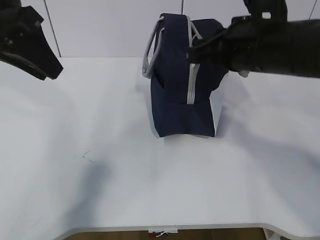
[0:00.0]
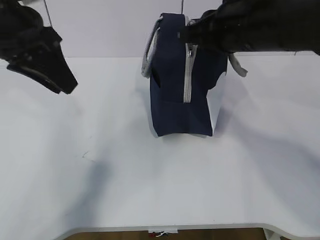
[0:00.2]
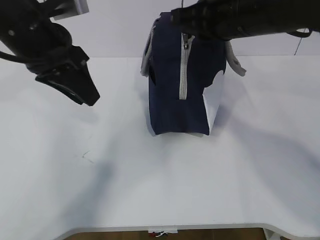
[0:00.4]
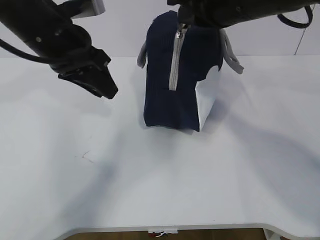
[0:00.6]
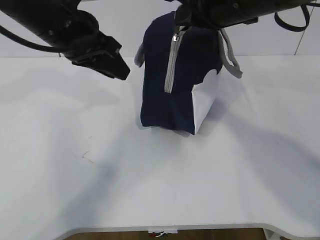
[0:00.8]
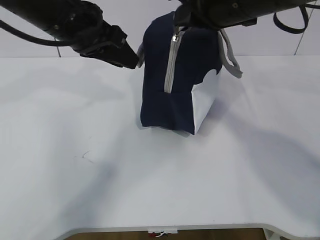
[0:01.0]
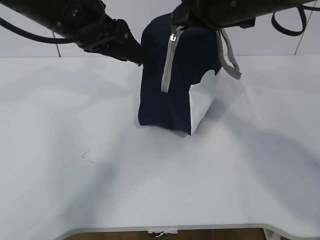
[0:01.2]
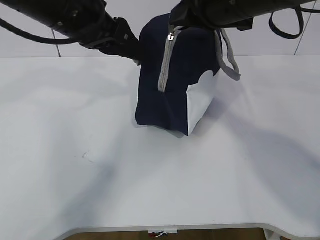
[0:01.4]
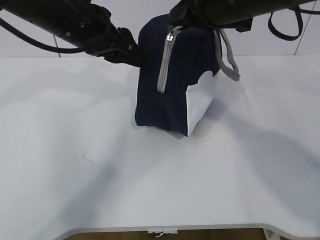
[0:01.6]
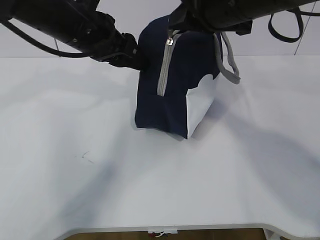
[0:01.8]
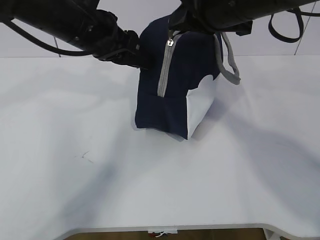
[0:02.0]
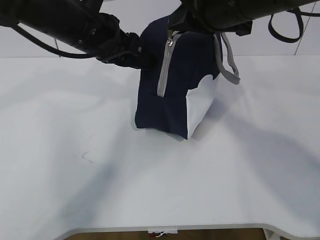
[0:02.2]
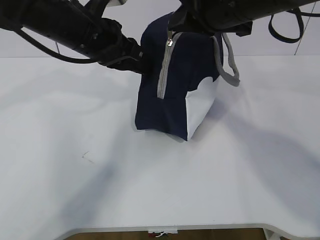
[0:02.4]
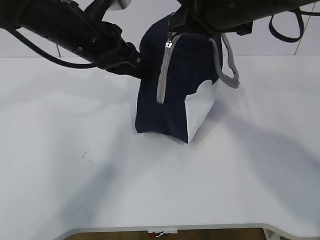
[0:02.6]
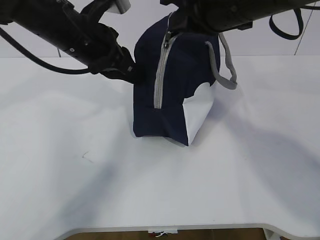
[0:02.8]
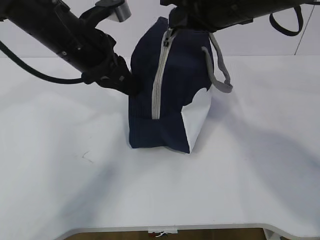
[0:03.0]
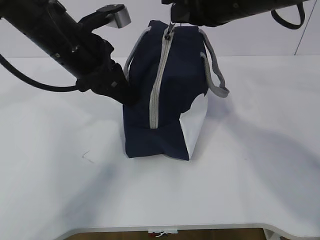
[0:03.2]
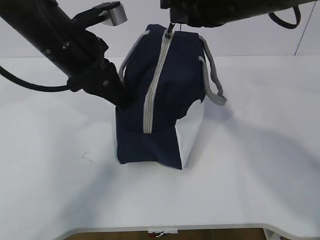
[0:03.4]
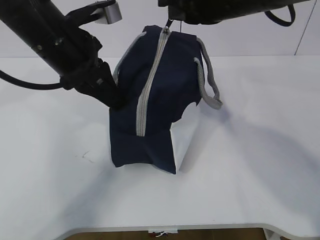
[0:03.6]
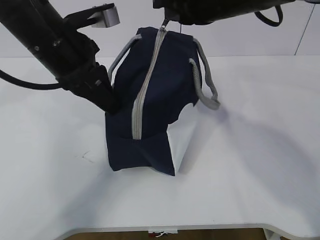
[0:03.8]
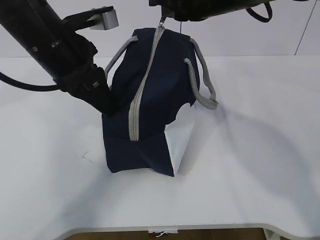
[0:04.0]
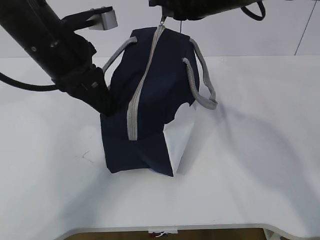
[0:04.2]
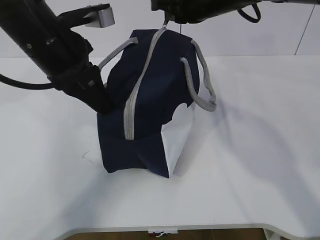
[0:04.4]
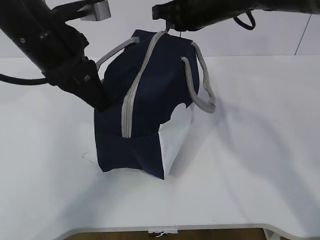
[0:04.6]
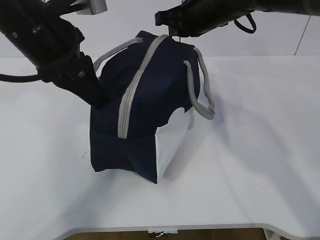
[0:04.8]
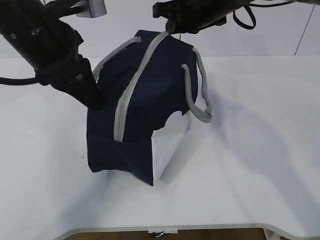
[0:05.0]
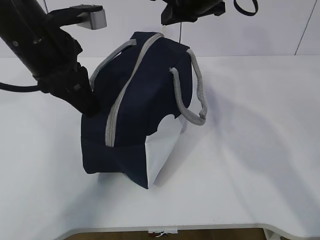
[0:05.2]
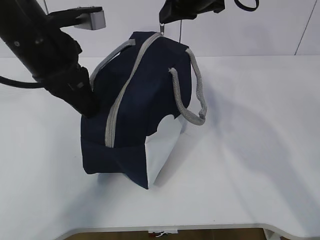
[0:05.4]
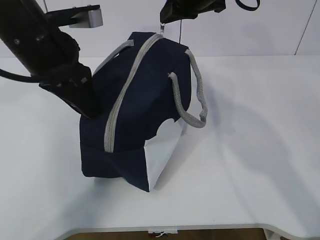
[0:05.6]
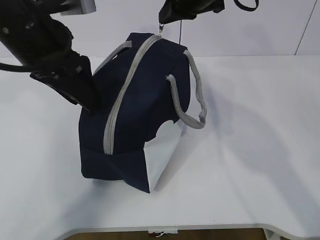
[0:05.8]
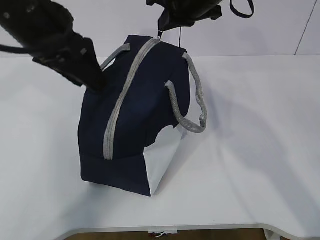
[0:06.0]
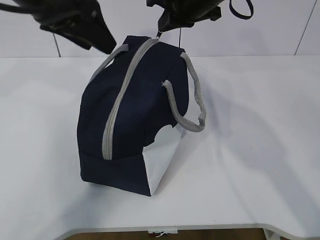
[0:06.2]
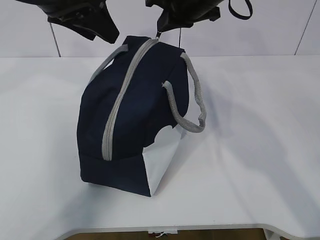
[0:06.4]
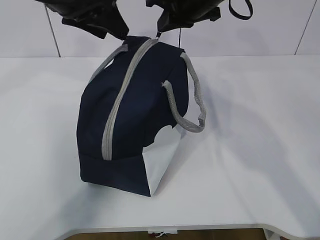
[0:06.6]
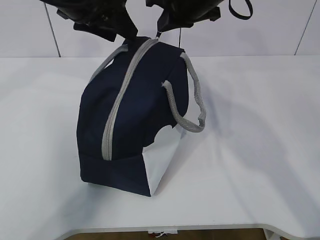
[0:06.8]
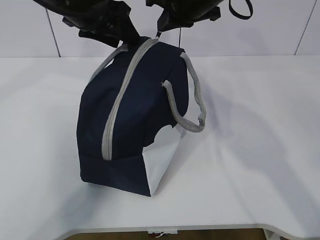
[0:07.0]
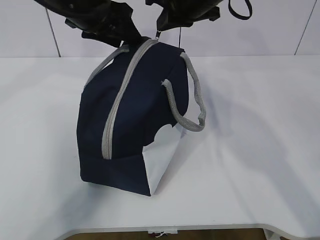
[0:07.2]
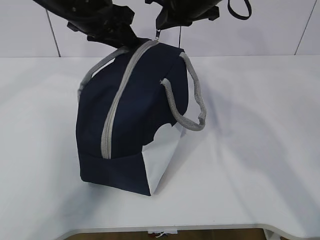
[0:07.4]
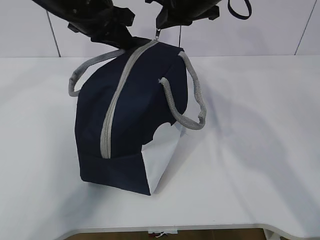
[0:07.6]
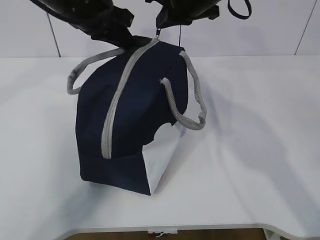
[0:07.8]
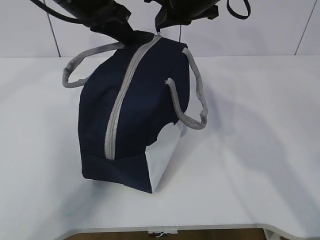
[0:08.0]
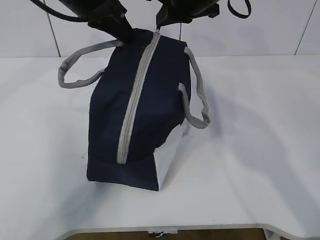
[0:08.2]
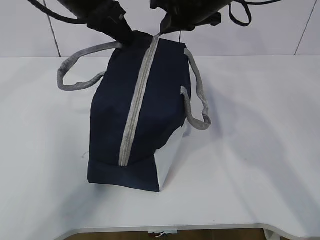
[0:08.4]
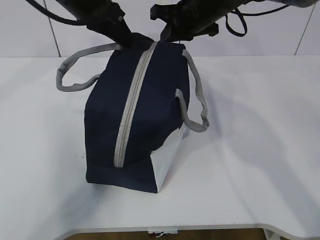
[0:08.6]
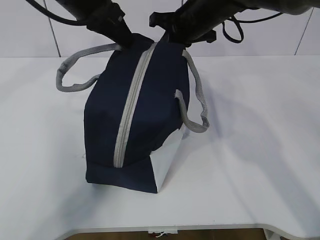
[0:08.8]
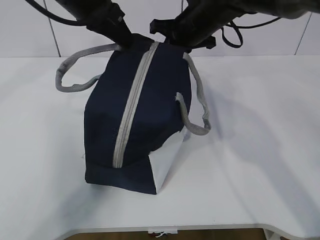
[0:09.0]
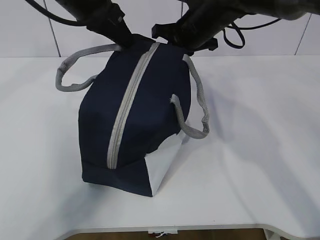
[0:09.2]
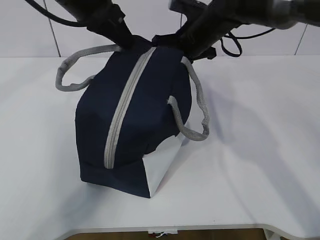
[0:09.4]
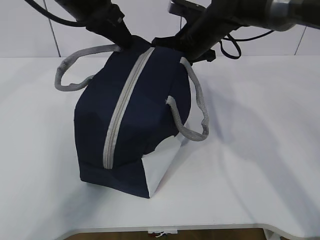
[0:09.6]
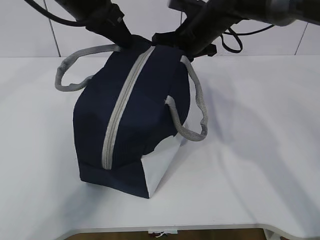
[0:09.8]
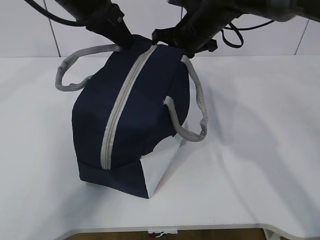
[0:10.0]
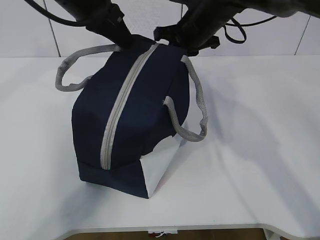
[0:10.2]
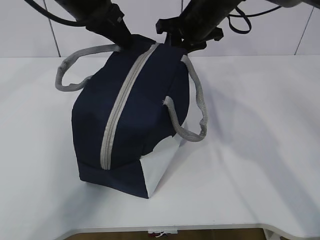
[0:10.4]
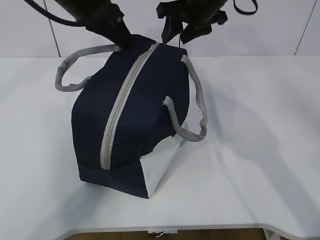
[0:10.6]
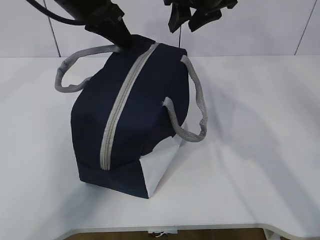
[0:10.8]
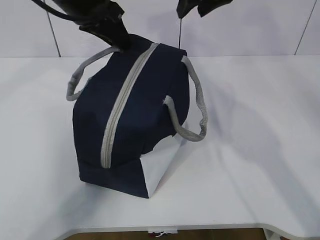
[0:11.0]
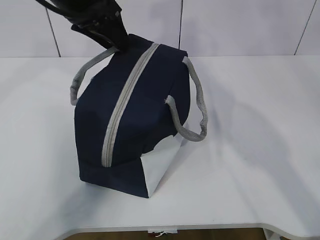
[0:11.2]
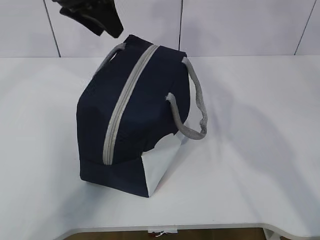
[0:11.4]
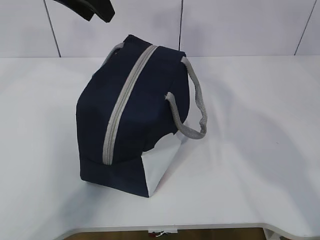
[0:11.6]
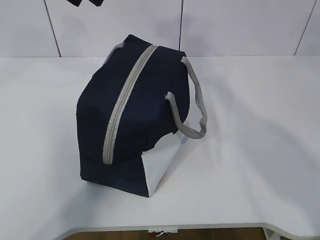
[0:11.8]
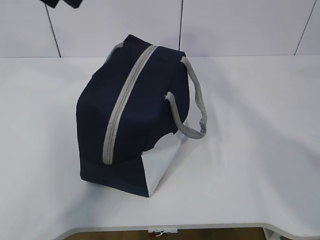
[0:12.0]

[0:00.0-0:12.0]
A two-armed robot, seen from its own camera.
Step, 0:00.2 to 0:00.8: Grab the lunch bag with your left hand.
0:00.0 to 0:01.6: The left gripper is displaced to the right, forward and downward by roughly 10 cm. Meanwhile the right gripper shifts some 5 cm upward.
0:01.6 to 0:03.0: The left gripper closes.
0:03.0 to 0:04.4: The right gripper travels forward by about 10 cm.
0:04.4 to 0:06.0: The left gripper opens.
0:06.0 to 0:07.6: The left gripper shifts about 10 cm forward, and closes its fingers.
0:07.6 to 0:09.0: The right gripper travels downward by roughly 5 cm.
0:09.0 to 0:10.4: The right gripper opens.
0:10.4 to 0:12.0: The left gripper moves upward and backward, about 10 cm, and opens up. The right gripper travels backward and upward by about 25 cm.

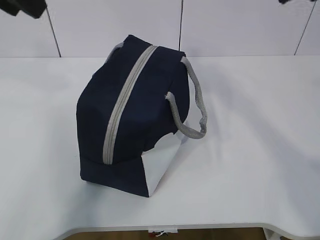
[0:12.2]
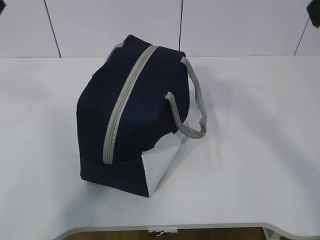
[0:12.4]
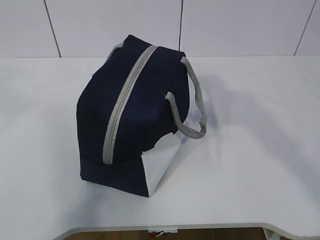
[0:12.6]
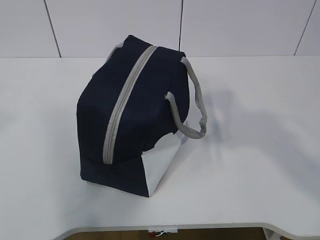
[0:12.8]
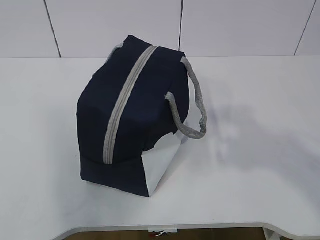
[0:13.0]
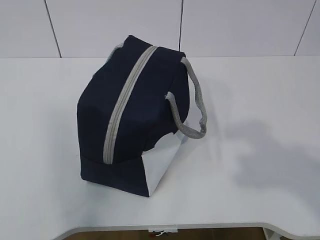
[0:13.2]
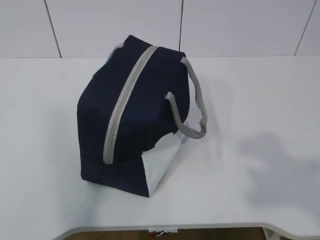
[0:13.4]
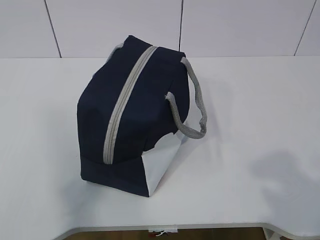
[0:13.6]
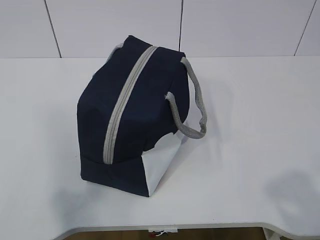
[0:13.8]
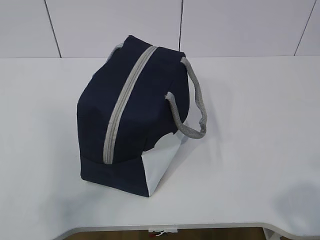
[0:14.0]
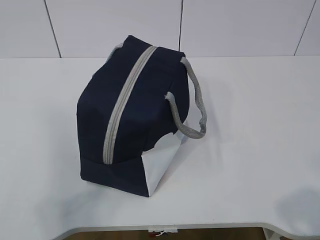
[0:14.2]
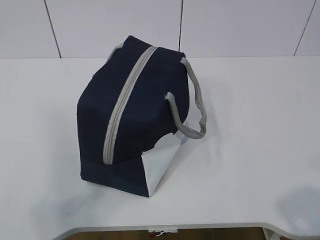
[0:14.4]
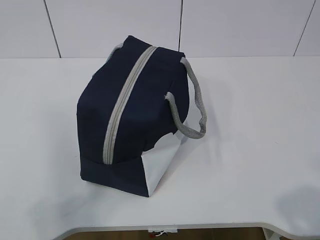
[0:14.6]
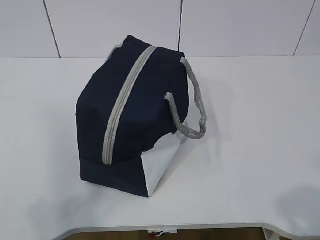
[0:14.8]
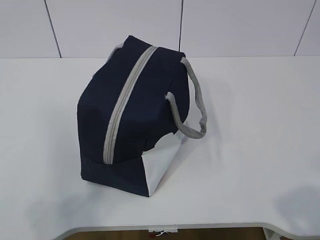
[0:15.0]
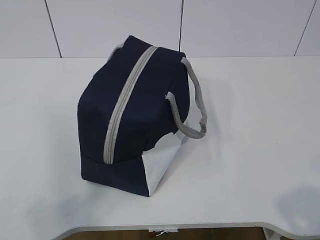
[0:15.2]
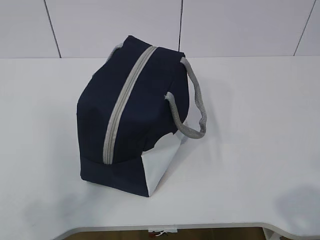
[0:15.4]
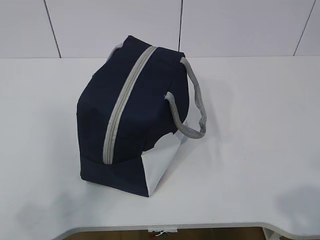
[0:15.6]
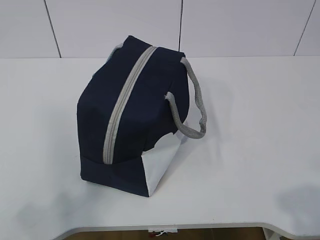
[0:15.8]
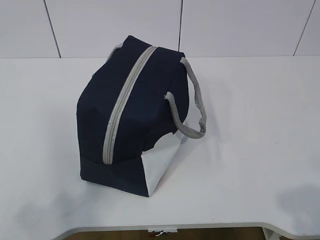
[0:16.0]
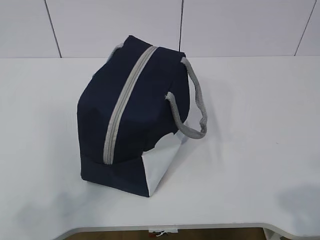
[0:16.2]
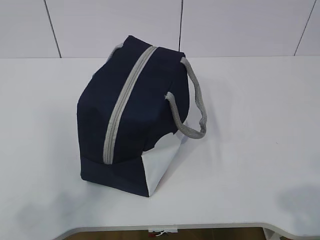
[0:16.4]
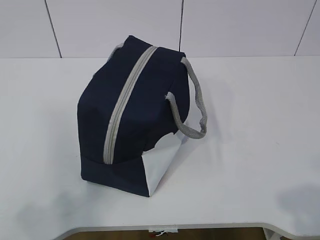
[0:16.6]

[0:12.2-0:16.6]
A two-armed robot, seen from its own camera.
0:12.2 to 0:13.6: The left gripper travels backward and to the left by roughly 30 cm. Meanwhile the right gripper moves backward, about 25 cm.

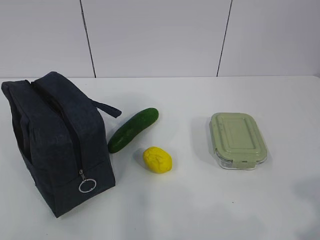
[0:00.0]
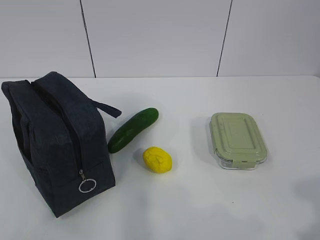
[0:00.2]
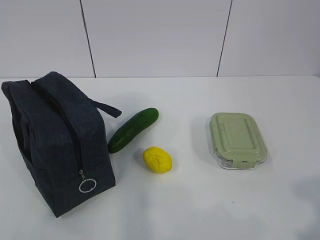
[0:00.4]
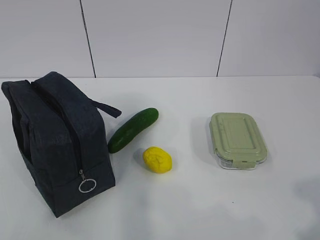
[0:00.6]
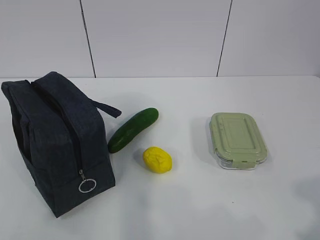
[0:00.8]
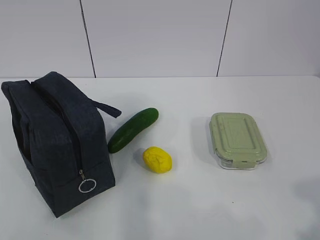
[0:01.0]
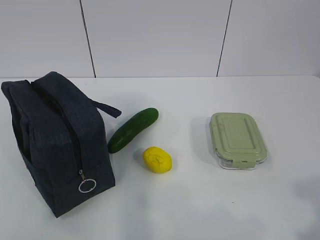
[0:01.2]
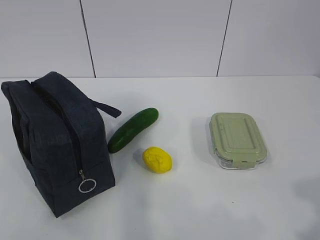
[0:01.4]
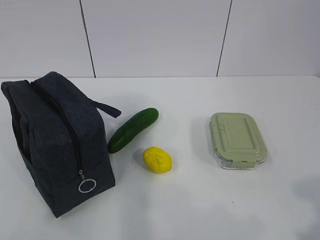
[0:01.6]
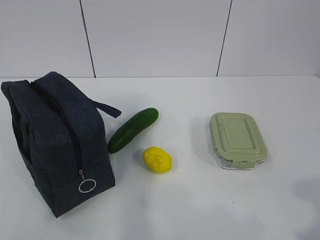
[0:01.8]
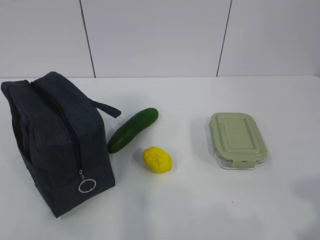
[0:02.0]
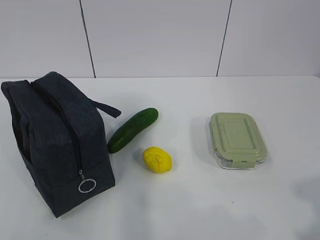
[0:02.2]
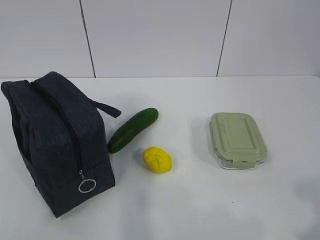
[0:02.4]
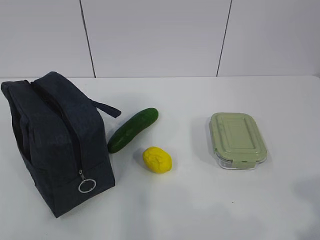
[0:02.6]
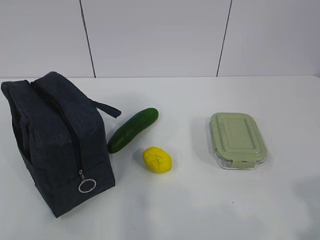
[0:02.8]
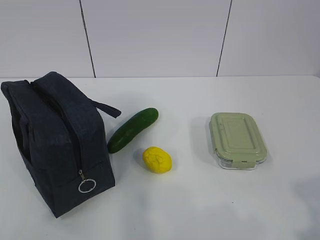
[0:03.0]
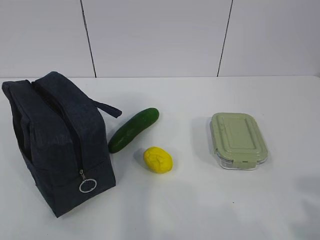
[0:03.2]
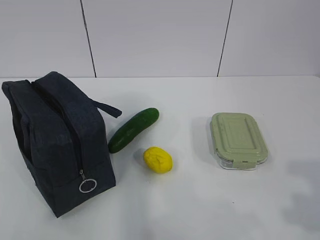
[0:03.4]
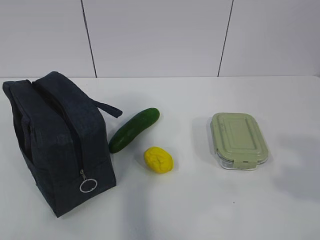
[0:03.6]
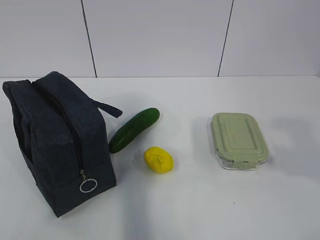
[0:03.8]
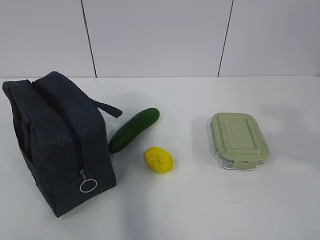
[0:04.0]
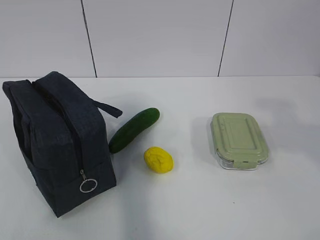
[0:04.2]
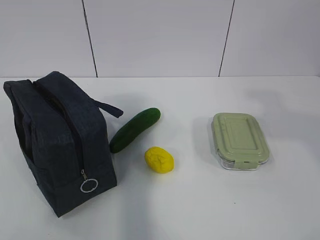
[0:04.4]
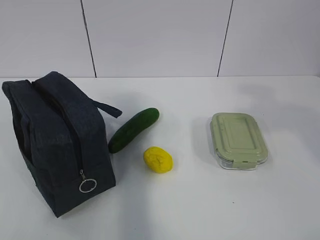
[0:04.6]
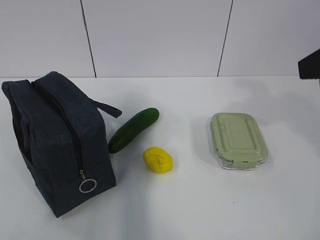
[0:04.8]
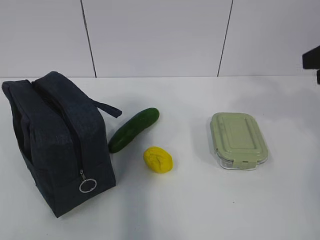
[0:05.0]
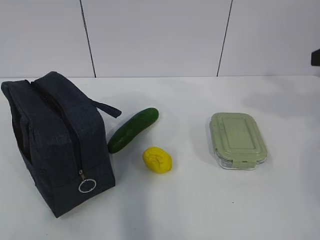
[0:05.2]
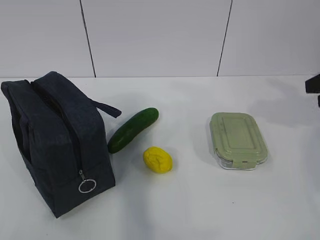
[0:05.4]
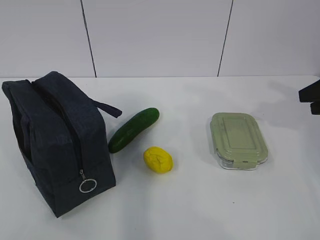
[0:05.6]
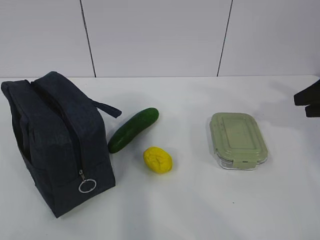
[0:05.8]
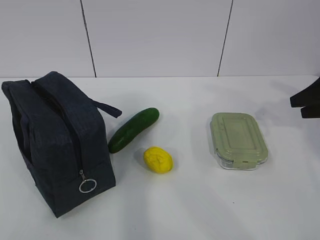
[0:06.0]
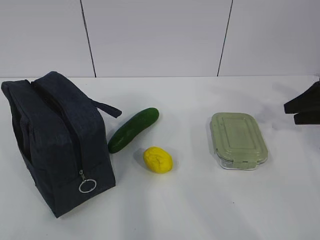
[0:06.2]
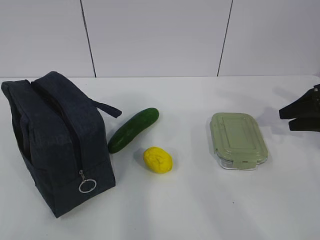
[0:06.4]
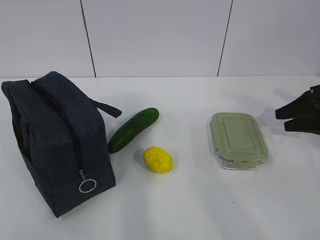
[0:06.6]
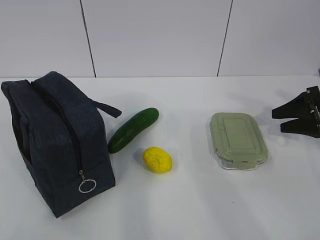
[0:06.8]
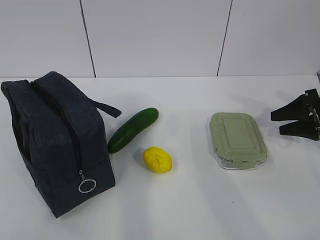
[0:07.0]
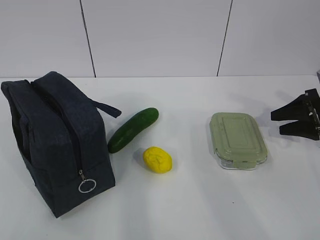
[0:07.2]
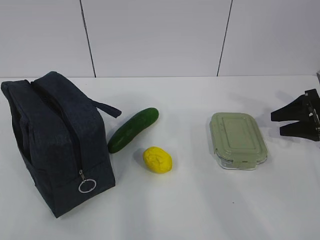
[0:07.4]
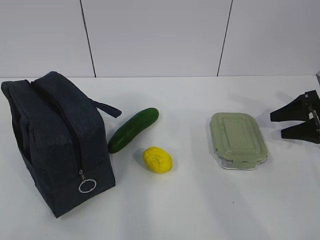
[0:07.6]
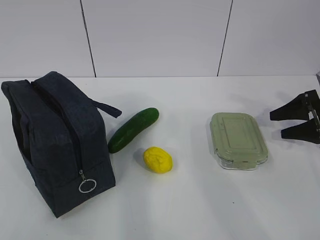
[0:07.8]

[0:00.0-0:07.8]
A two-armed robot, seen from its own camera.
0:03.2 to 0:04.6: The right gripper moves forward and upward, roughly 20 cm.
0:04.6 to 0:06.2: The right gripper travels forward, downward and to the right by some 30 cm.
0:06.2 to 0:07.8: The right gripper travels downward by roughly 5 cm.
